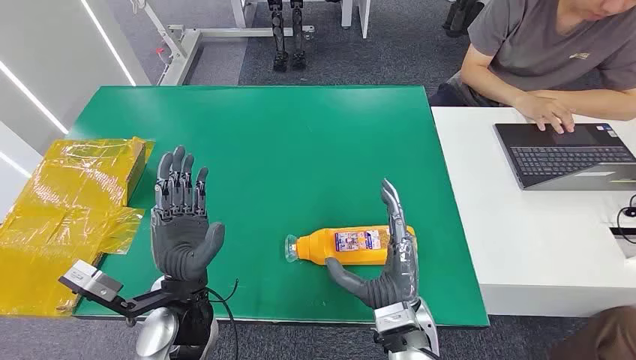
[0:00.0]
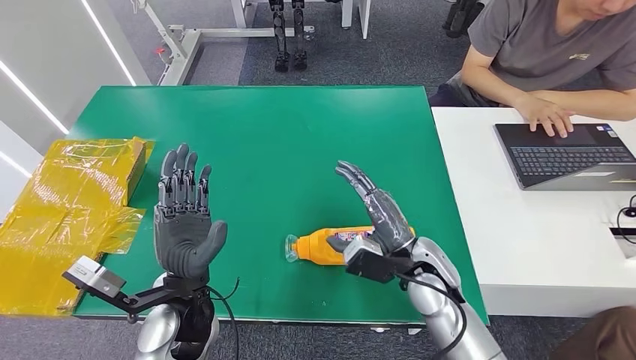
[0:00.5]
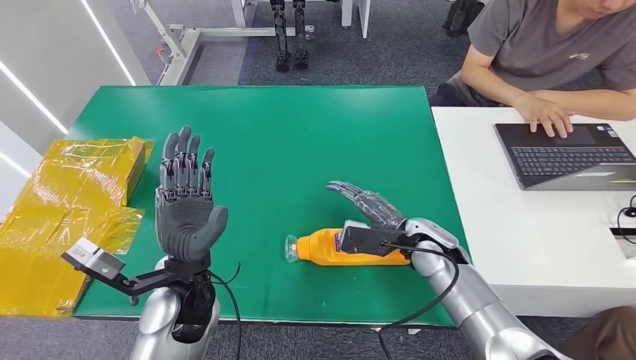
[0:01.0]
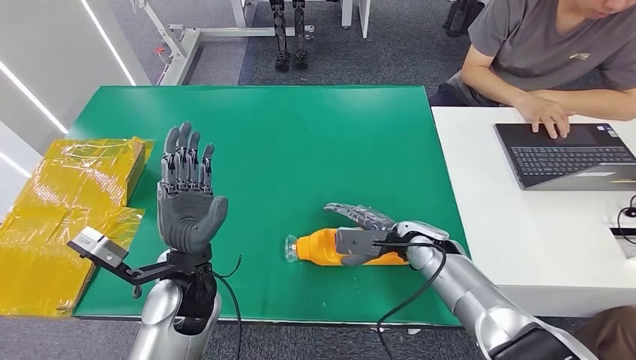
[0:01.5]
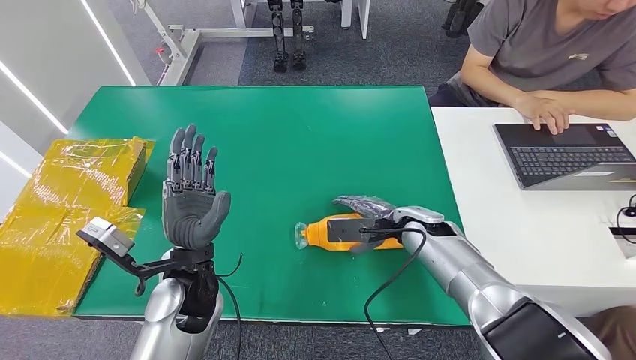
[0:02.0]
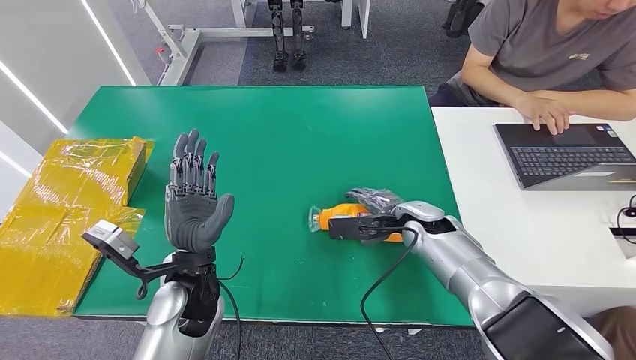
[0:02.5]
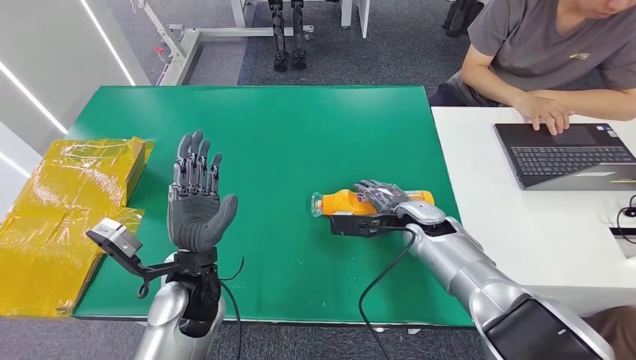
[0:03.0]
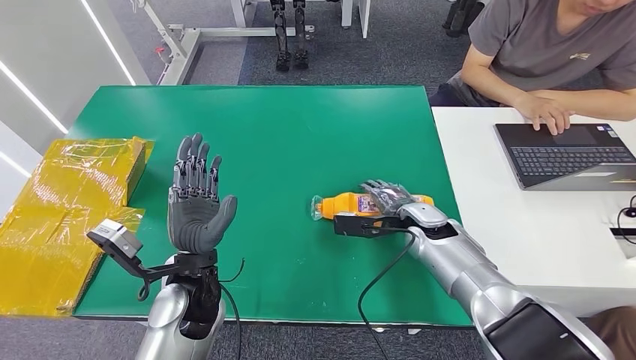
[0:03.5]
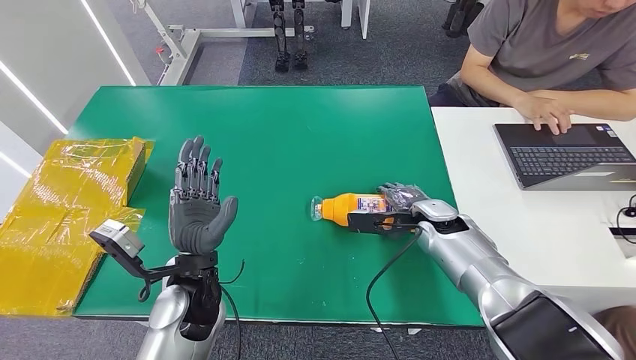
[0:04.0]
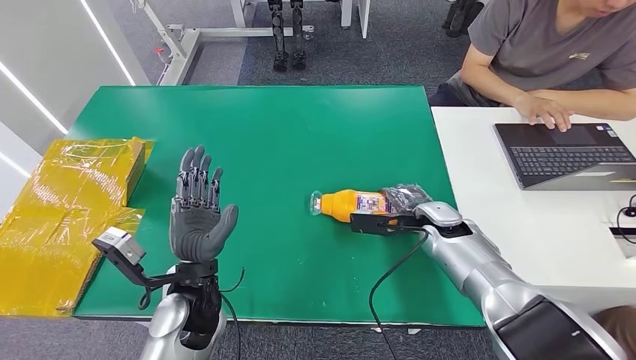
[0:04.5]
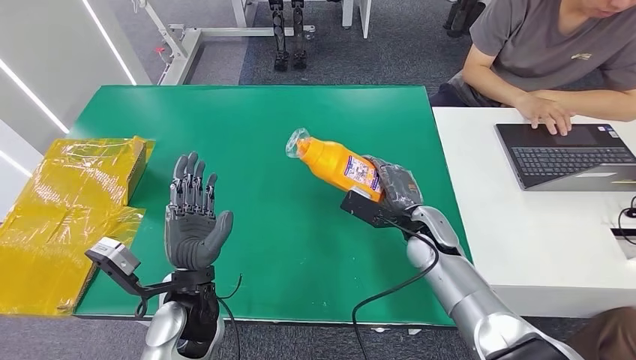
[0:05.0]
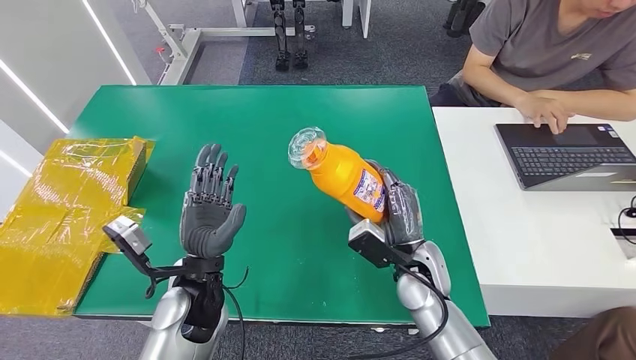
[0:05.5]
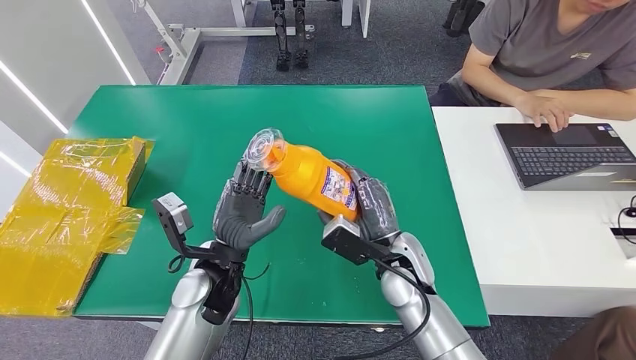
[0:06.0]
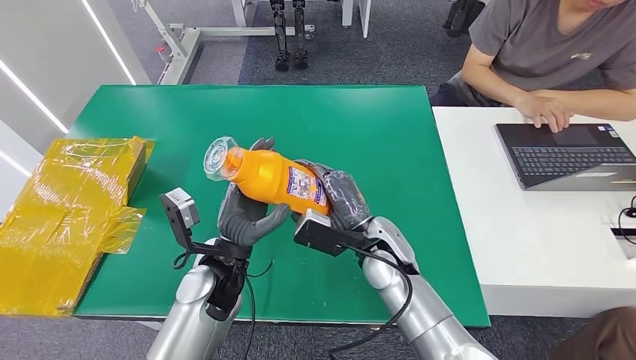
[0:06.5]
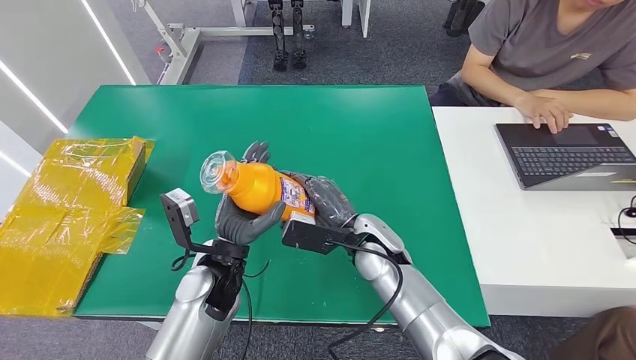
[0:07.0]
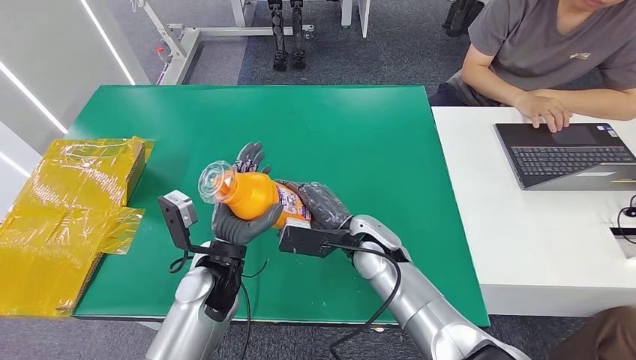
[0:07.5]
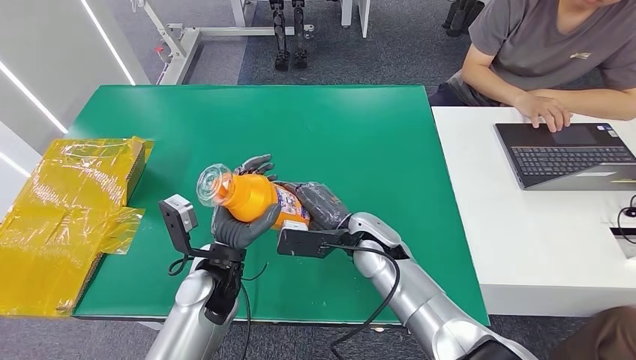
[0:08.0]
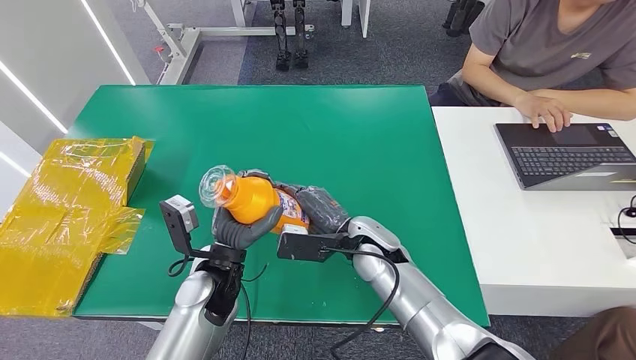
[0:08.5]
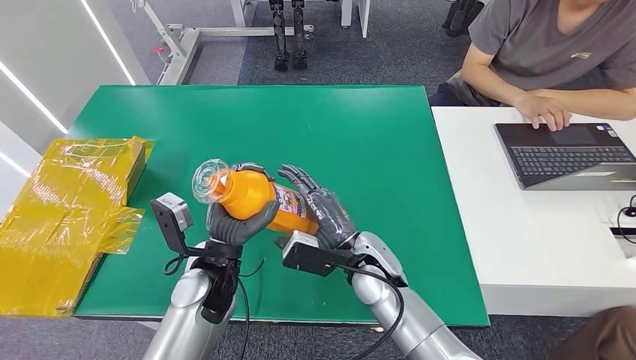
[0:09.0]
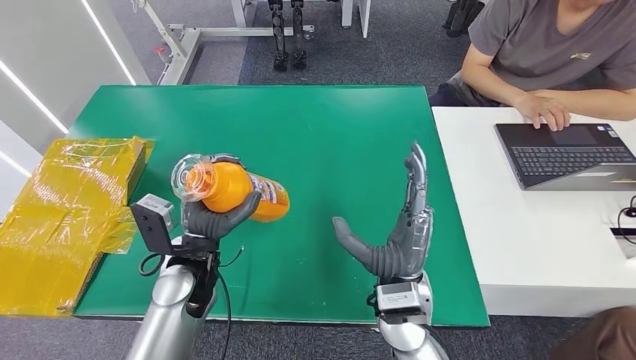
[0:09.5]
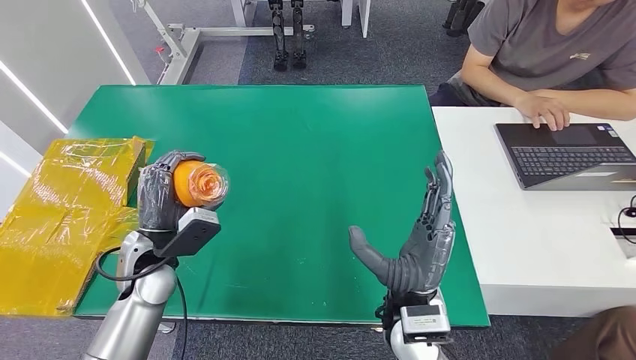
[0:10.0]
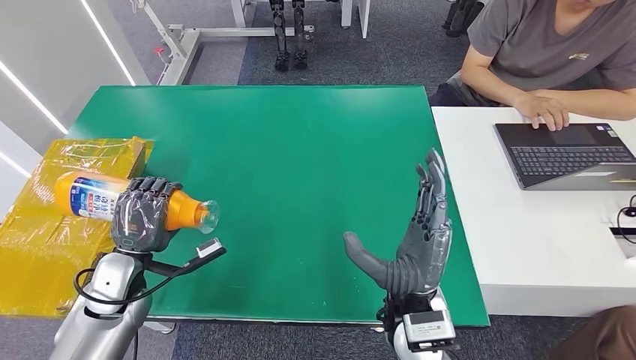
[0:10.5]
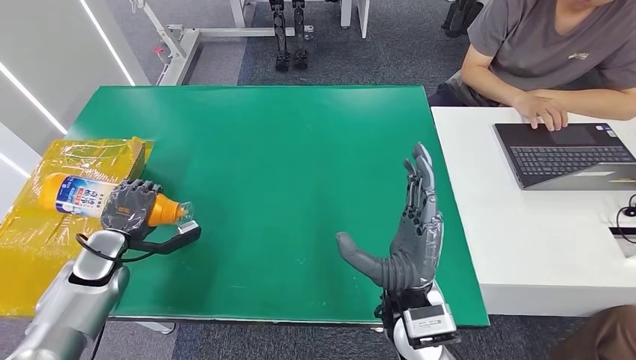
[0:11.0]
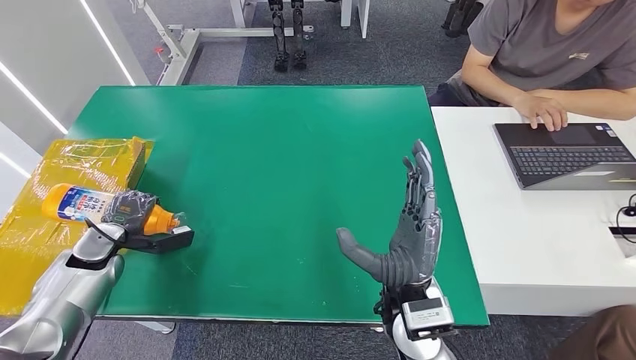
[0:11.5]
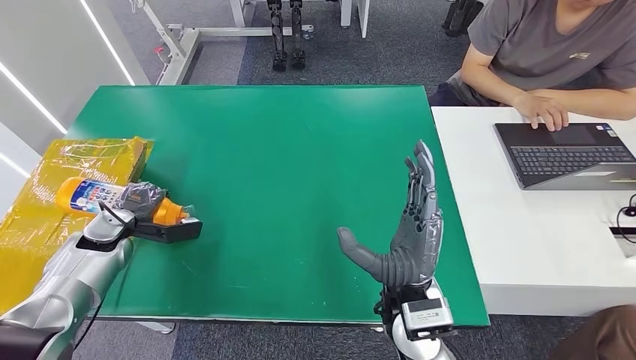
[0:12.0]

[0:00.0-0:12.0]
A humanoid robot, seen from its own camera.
Step, 0:00.0 to 0:06.5: Pick up the bottle from the table.
0:04.0 to 0:06.0: The right hand travels to the left and backward by some 15 cm.
0:06.0 to 0:08.0: The right hand moves roughly 5 cm.
0:08.0 to 0:10.0: The left hand moves to the left, roughly 10 cm. The right hand moves backward, roughly 15 cm.
0:10.0 to 0:12.0: The left hand goes some 15 cm to the left and forward.

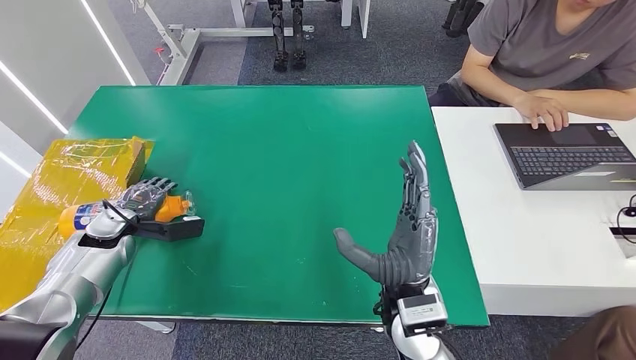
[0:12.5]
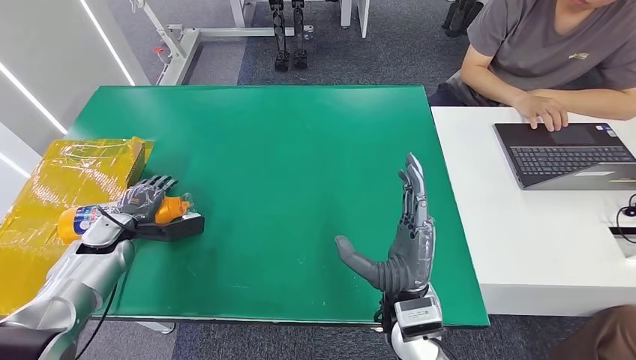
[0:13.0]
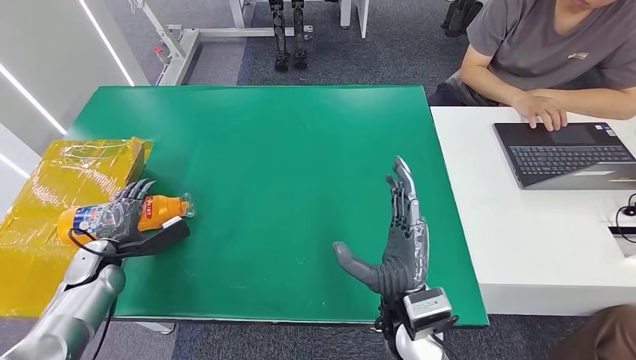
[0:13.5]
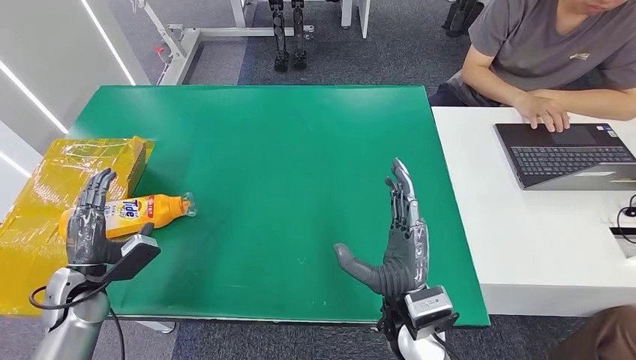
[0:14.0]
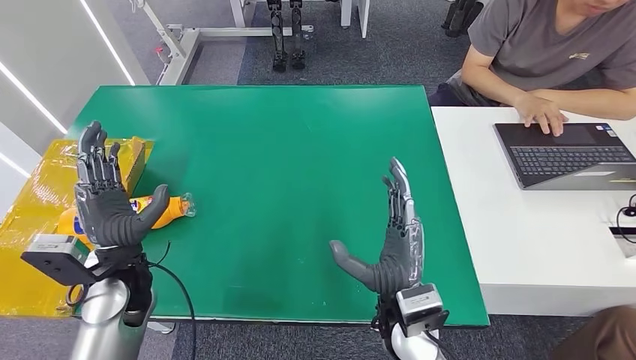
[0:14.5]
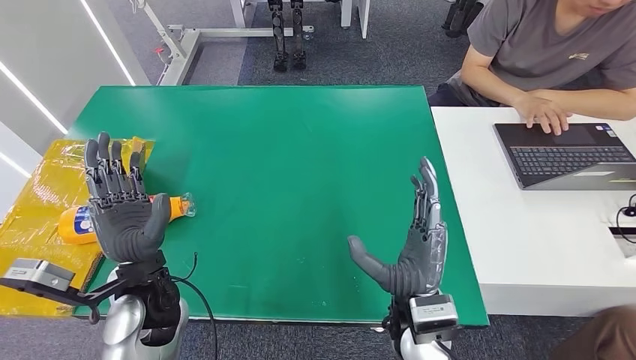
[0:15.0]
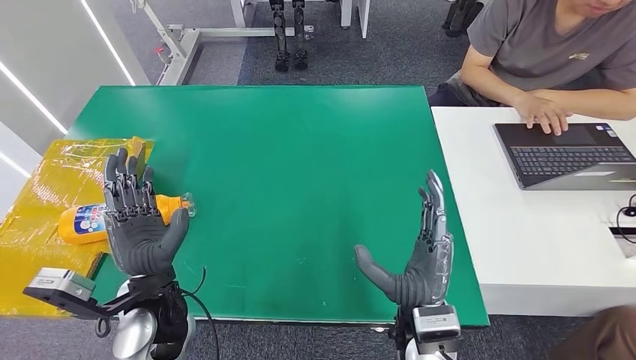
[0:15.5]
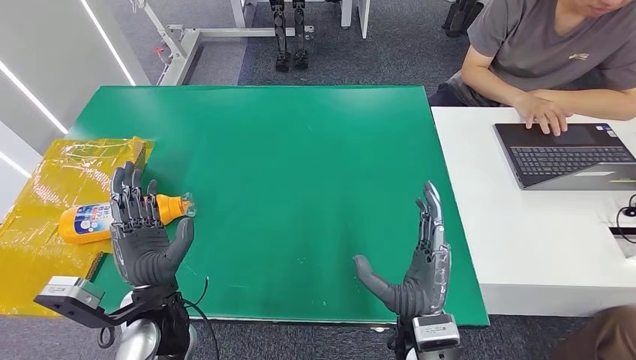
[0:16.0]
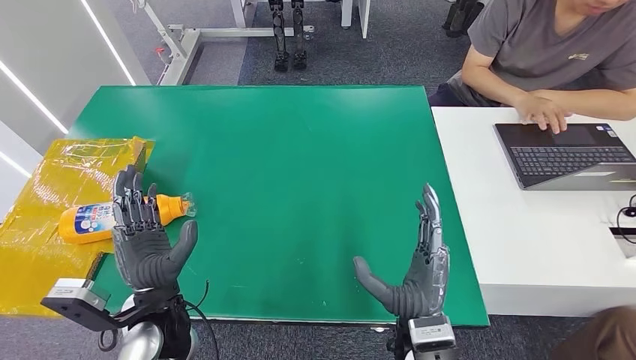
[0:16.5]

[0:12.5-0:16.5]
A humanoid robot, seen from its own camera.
Step, 0:12.5 to 0:16.5: Turn the bottle to the front side.
0:12.5 to 0:14.5: The left hand goes some 20 cm to the right, backward and upward.
0:14.5 to 0:16.5: The left hand goes approximately 10 cm to the right and backward.

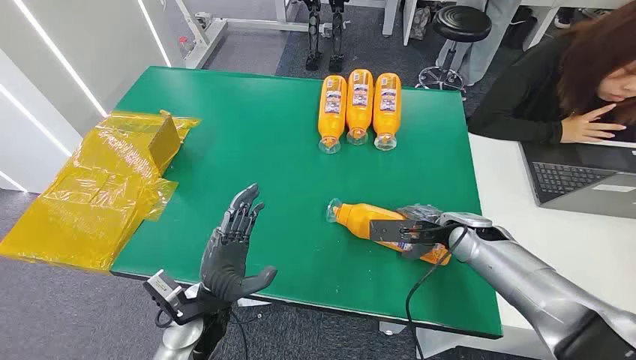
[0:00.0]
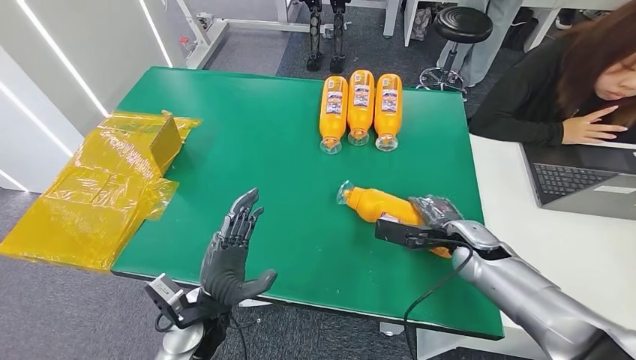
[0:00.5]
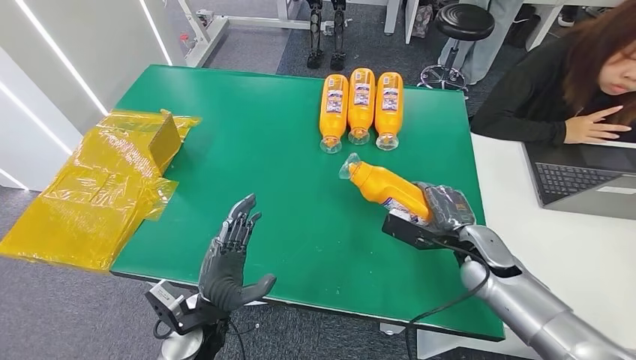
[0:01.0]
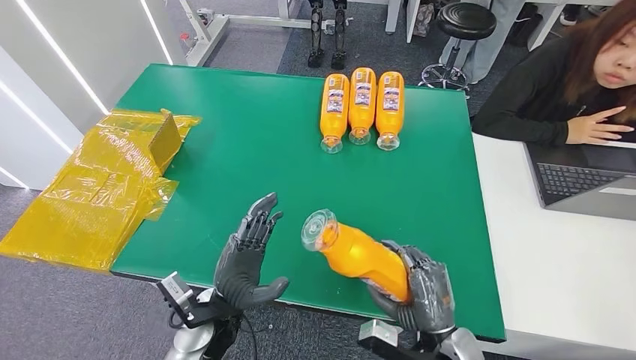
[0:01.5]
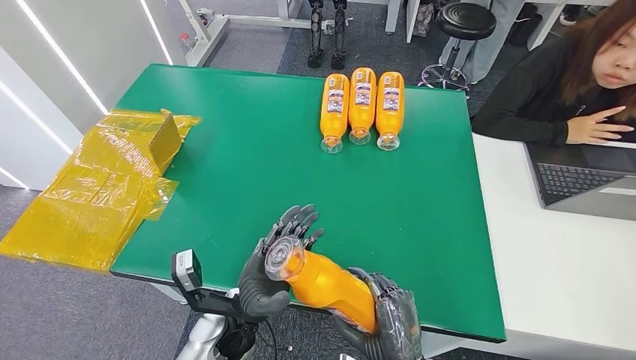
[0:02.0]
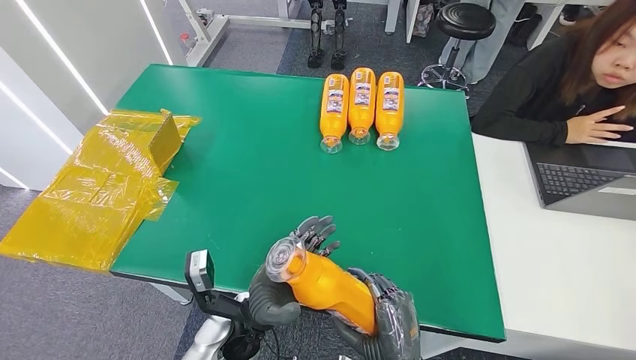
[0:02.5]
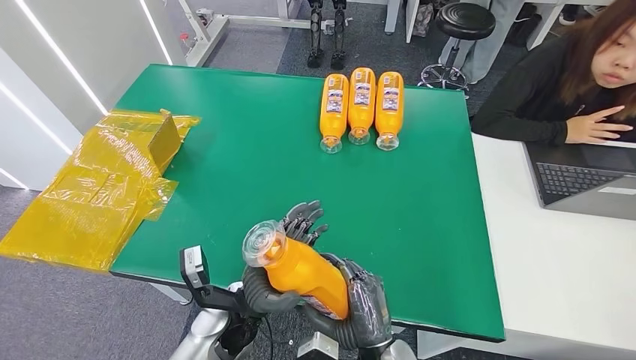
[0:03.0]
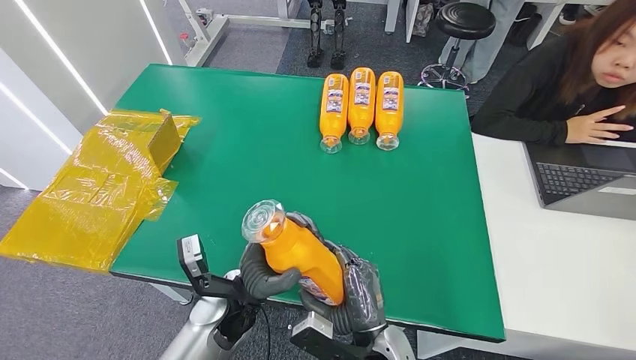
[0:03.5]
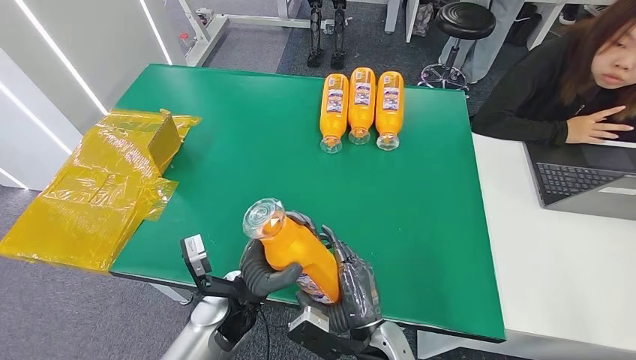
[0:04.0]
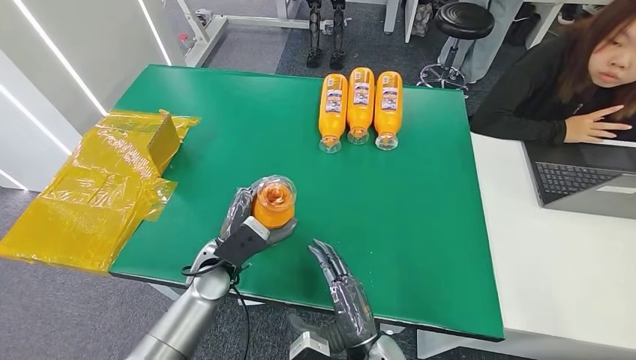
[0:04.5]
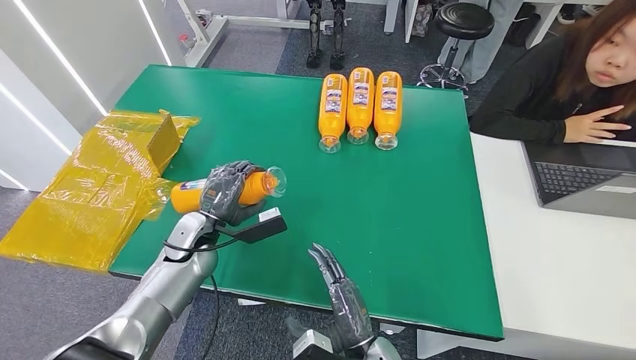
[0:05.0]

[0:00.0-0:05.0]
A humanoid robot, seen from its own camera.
Step, 0:00.0 to 0:02.0: Pick up the bottle from the table.
0:02.5 to 0:05.0: The right hand is displaced to the left by approximately 5 cm. Meanwhile the left hand moves forward and to the left, about 20 cm.
